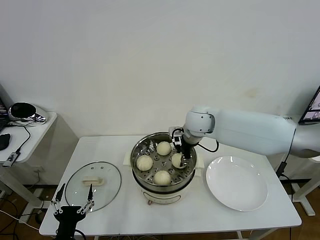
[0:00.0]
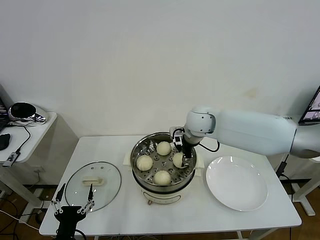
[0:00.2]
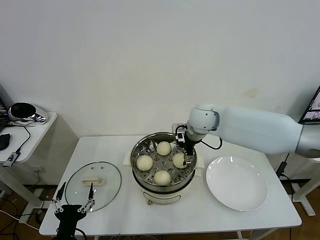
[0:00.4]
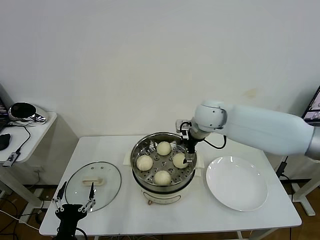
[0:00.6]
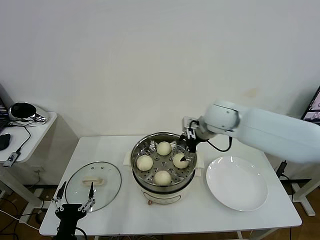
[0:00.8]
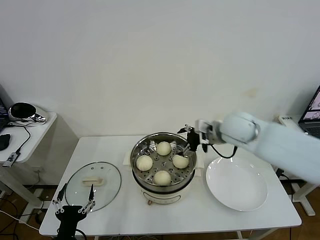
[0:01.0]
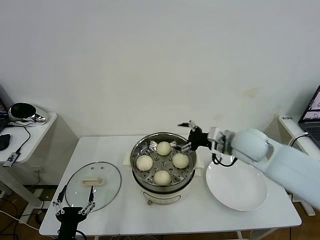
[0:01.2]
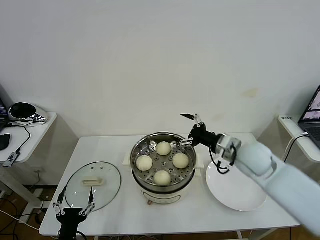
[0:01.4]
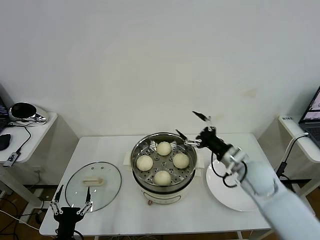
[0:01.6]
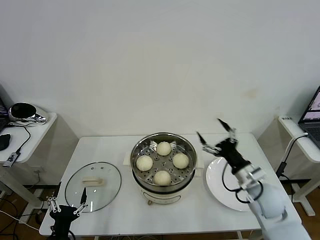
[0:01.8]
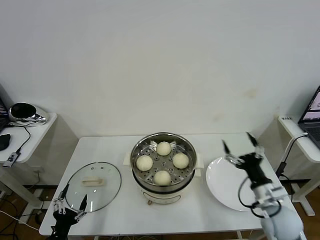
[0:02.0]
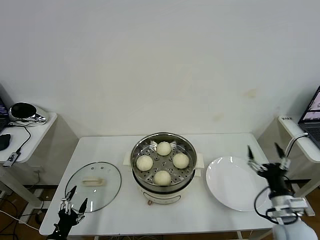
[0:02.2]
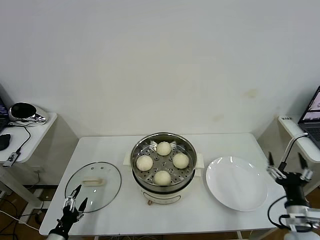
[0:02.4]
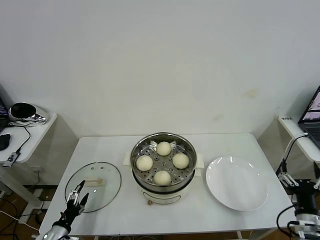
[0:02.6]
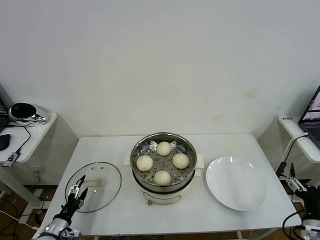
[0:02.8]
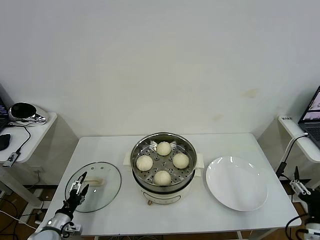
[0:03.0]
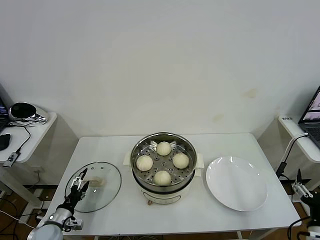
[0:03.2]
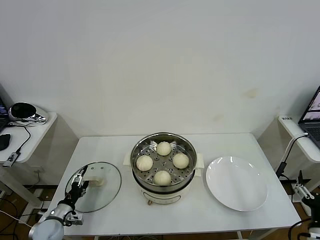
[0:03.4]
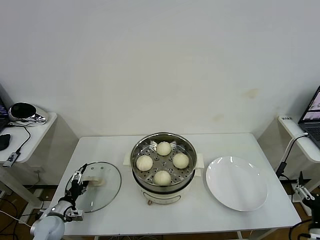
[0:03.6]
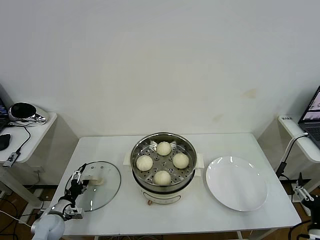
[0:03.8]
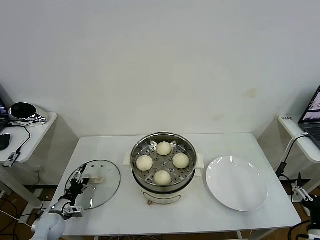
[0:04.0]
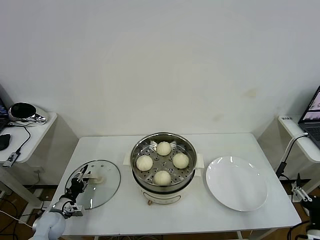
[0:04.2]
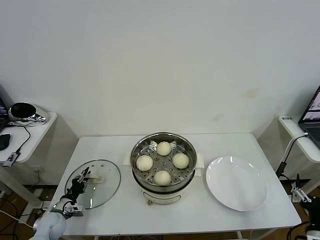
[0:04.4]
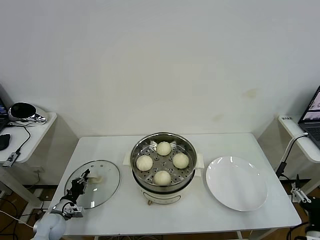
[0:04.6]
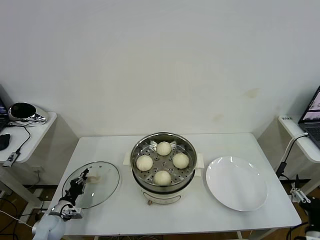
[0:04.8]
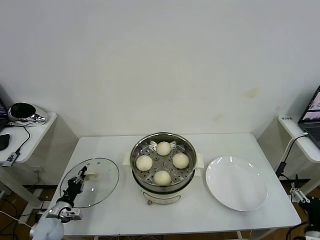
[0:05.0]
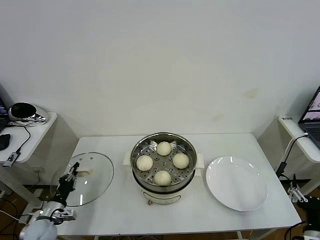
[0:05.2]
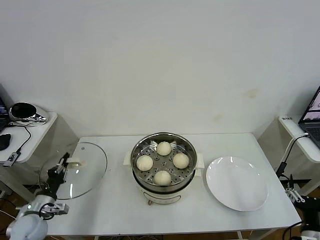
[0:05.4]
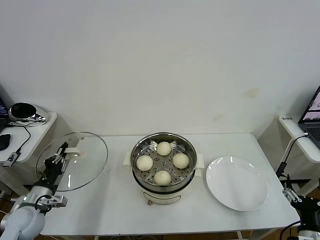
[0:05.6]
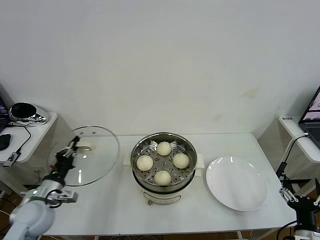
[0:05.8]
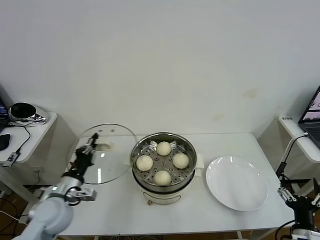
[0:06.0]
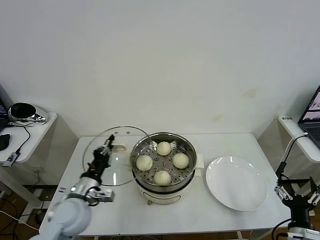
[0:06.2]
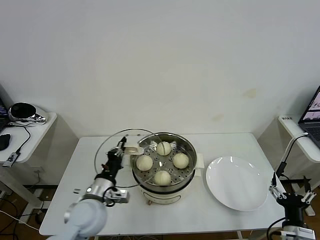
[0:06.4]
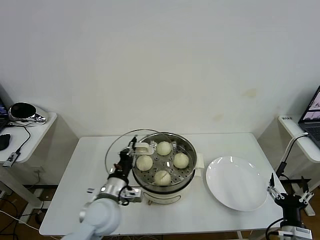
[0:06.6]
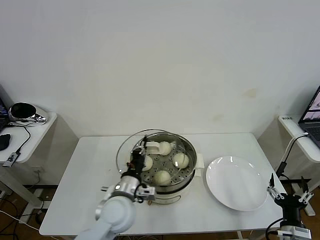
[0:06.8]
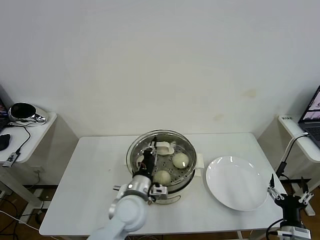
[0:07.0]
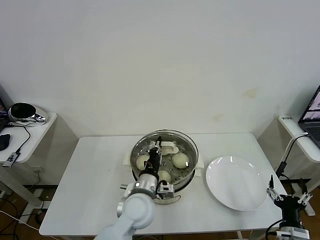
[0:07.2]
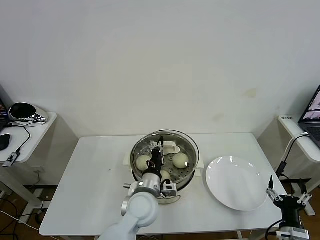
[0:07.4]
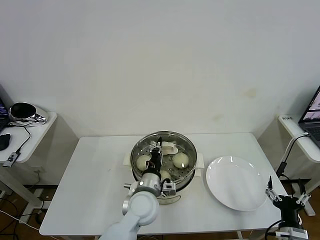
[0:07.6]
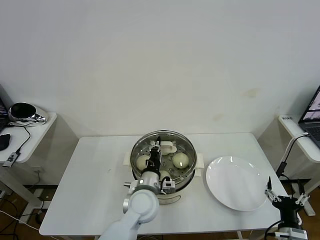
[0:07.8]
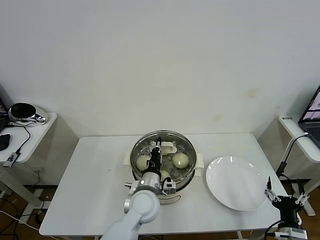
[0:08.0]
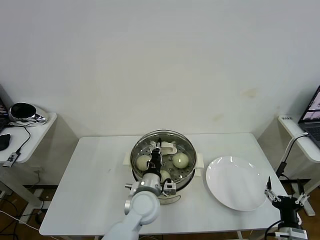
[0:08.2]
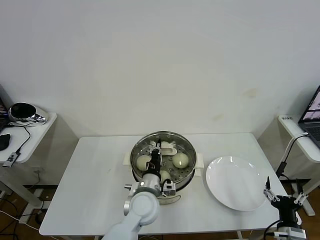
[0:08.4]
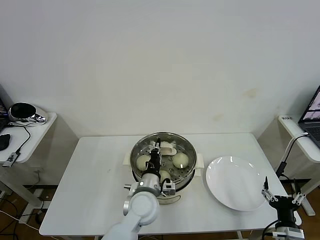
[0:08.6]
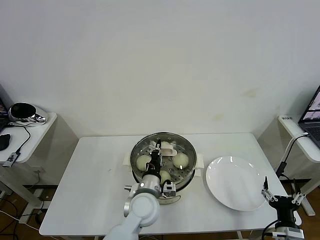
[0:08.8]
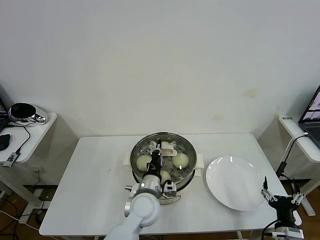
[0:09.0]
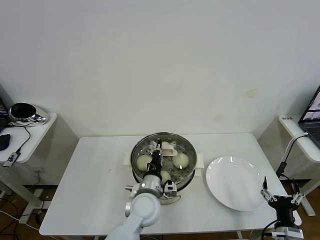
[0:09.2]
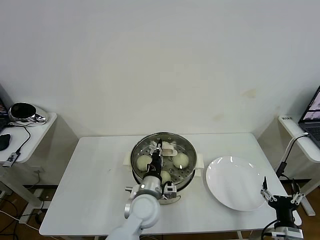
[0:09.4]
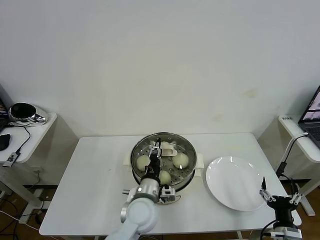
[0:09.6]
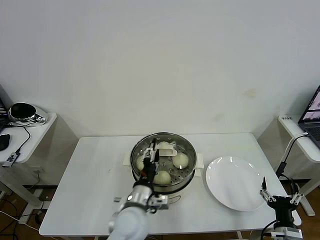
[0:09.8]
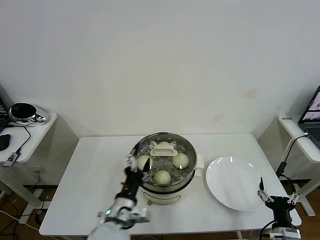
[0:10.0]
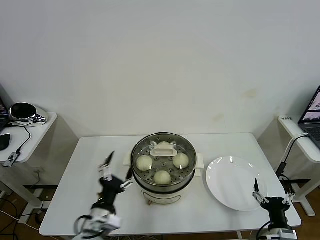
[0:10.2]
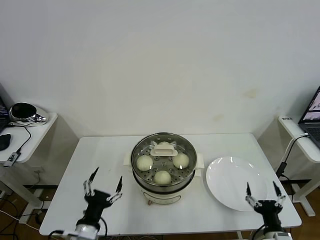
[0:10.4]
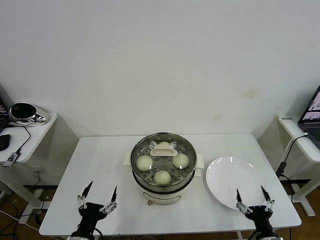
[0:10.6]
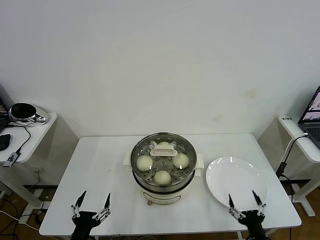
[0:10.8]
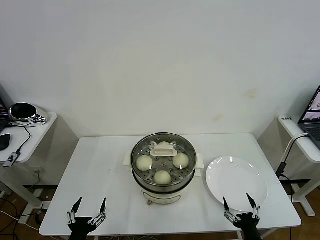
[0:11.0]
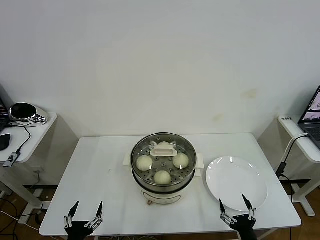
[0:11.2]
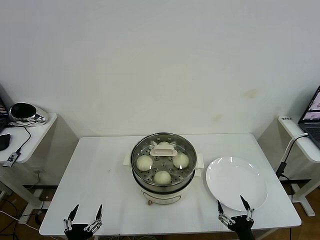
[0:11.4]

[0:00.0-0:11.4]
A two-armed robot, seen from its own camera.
Task of the whole recording: take steamed baozi put them in steamer then cover it.
Step, 0:00.6 to 0:04.6: Grasp the pot lid with left gripper.
Step, 0:04.8 to 0:09.8: Place the pot lid on the steamer with left gripper.
0:00.0 to 0:01.4: The right gripper goes about 20 cm to the right and backward, and opens up.
0:01.4 to 0:02.8: The left gripper travels to the left, forward and downward by about 15 cm. The right gripper heads backward, to the right and downward, covering about 30 cm.
0:02.8 to 0:04.2: The left gripper shifts about 10 cm forward, and closes up.
0:04.2 to 0:05.6: The left gripper is displaced upward by about 15 cm, and closes.
0:05.6 to 0:07.2: The left gripper goes some 35 cm to the right.
0:07.2 to 0:08.6: The grippers make only small movements.
0:08.6 to 0:10.0: The left gripper goes about 10 cm backward and to the left, and opens up.
0:10.0 to 0:11.4: The left gripper goes about 25 cm to the left, backward and downward. Meanwhile the right gripper goes roughly 5 cm to the left.

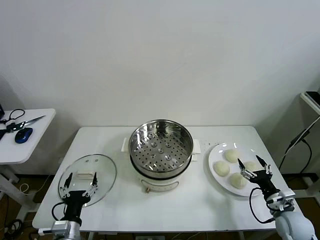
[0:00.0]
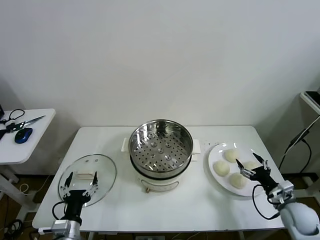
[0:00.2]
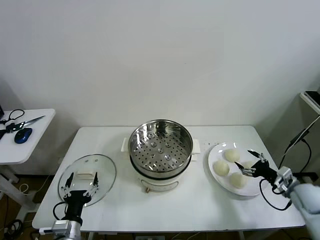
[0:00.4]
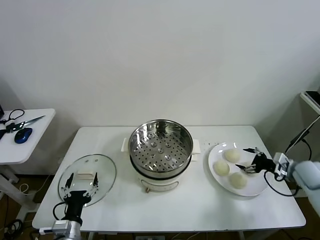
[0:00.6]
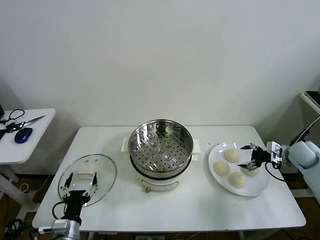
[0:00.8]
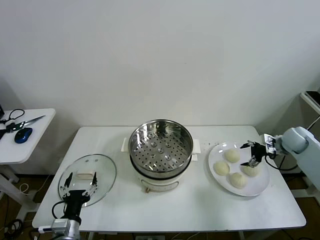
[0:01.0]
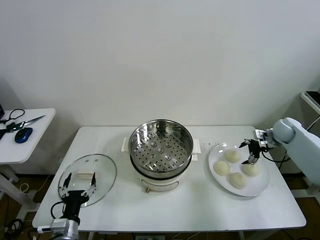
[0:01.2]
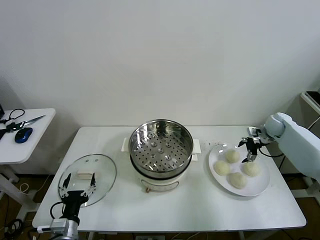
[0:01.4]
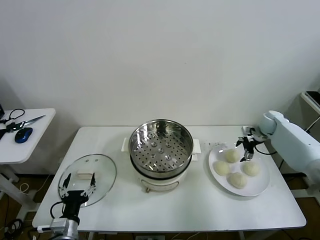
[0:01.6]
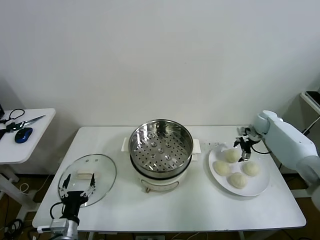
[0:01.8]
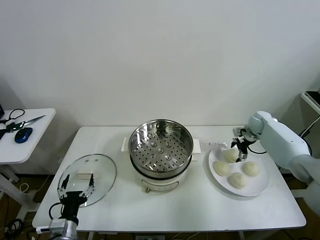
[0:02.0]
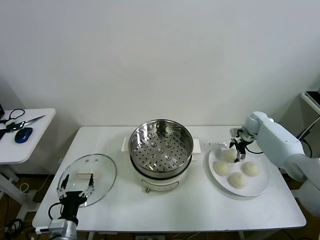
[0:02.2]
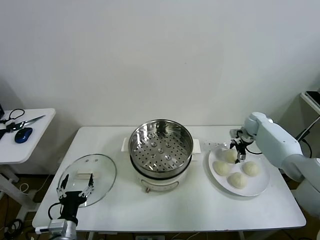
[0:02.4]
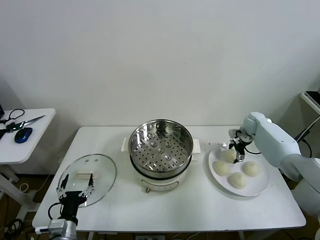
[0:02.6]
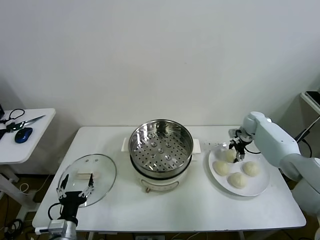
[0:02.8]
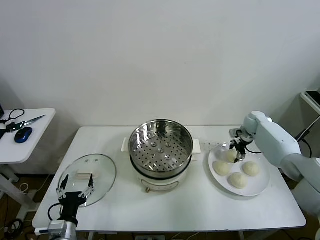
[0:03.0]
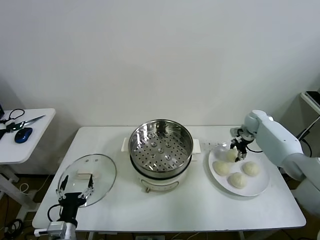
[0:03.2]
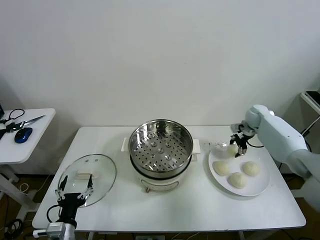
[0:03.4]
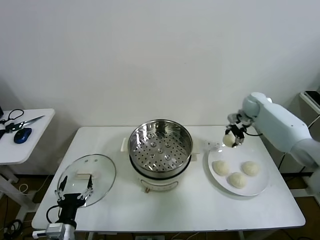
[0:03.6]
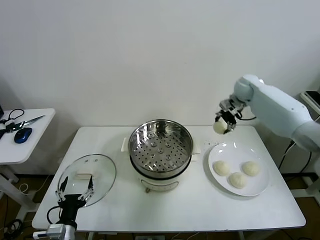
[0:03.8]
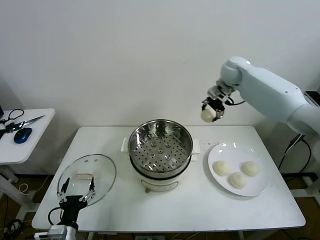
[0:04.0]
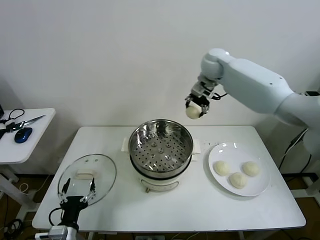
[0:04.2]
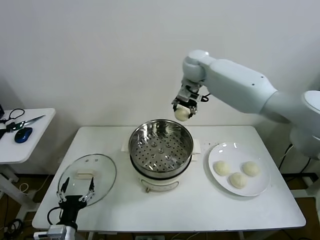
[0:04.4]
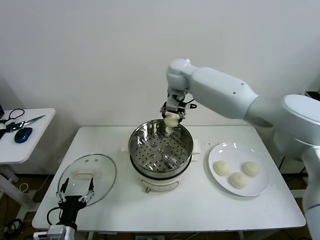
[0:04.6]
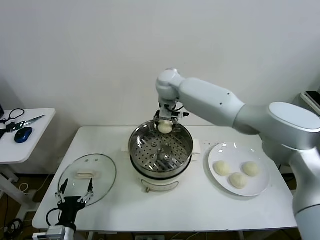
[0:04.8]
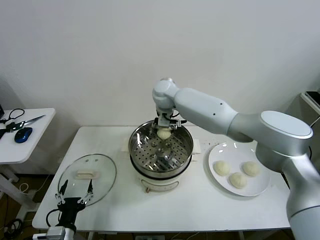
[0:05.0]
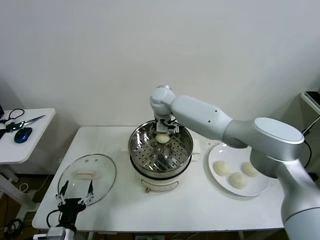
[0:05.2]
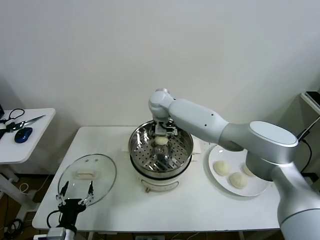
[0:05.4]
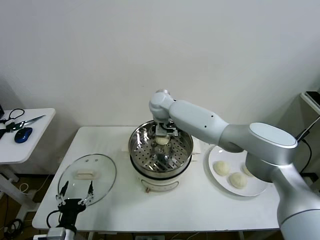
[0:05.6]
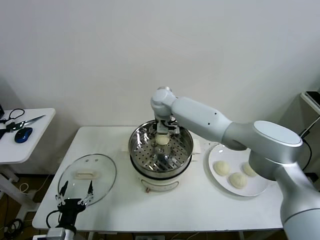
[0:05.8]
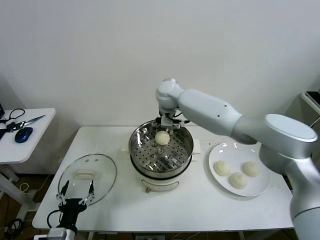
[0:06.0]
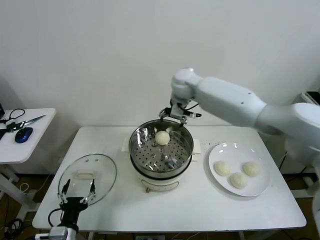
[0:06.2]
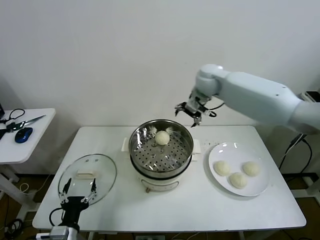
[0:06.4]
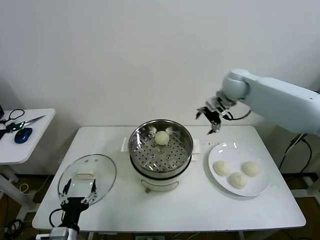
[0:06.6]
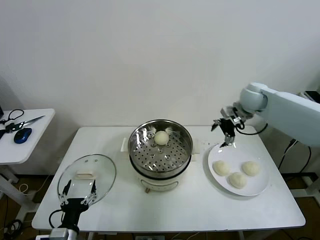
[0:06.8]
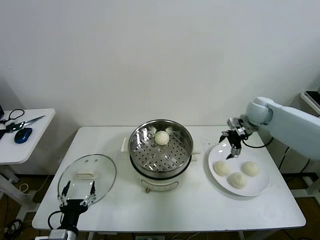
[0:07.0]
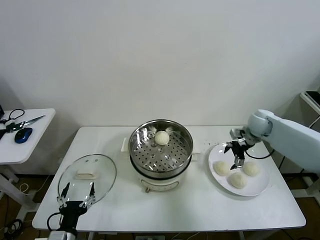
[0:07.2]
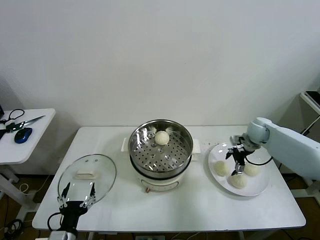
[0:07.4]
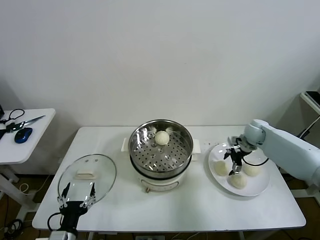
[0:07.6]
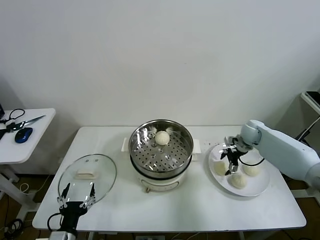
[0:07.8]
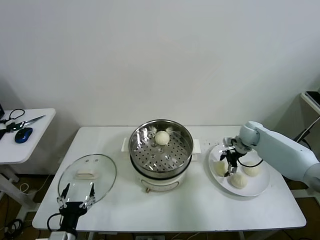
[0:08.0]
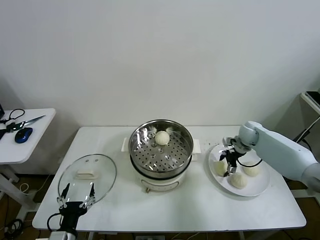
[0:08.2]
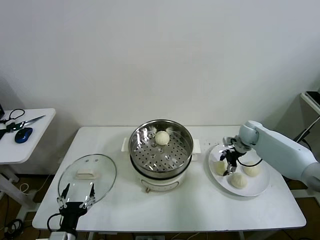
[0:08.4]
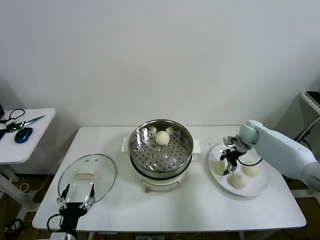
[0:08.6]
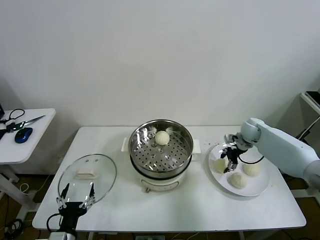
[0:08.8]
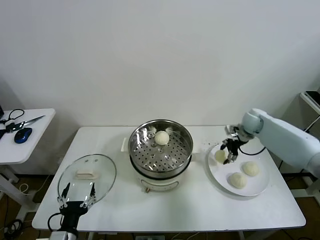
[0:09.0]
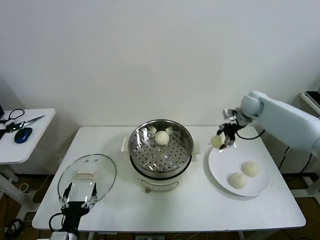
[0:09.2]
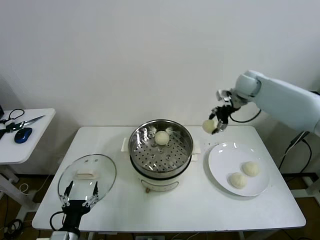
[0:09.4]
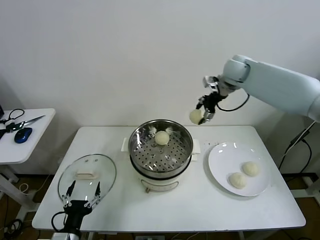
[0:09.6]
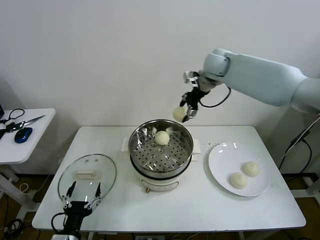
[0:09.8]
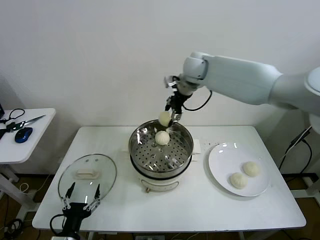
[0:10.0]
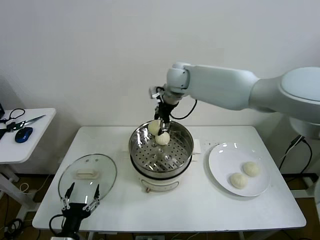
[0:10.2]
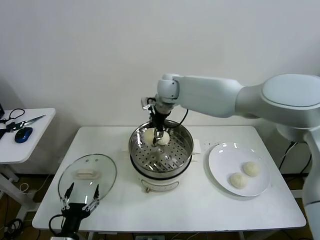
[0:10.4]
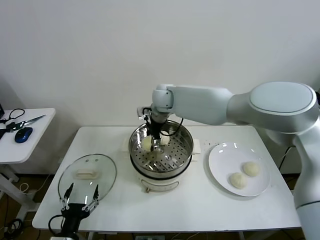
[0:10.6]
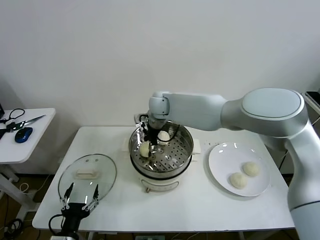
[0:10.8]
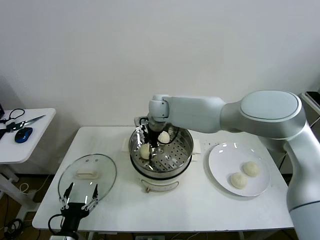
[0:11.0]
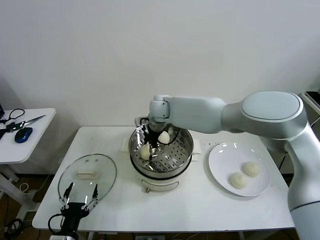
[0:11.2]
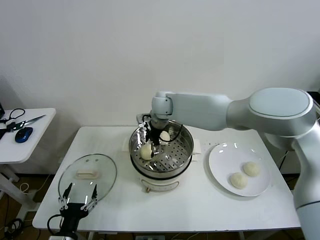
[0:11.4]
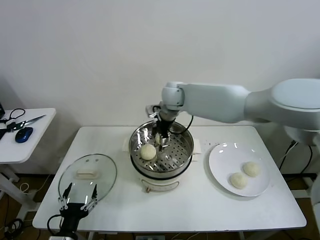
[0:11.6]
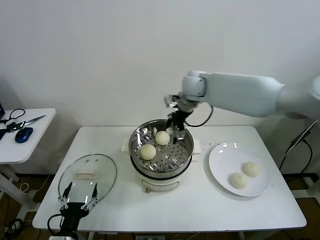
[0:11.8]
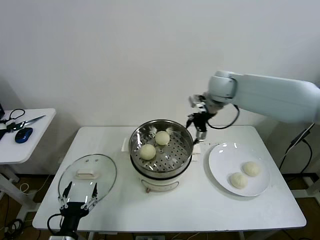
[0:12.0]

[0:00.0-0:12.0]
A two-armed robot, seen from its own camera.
Task of the whole recording: take steamed baozi put them in steamer then cover it.
Step, 0:00.0 to 0:02.8: Grasp the baozi in the plate with right gripper.
Step, 0:03.0 to 0:05.8: Place the baozi on the steamer with right gripper.
Step, 0:06.0 to 0:08.4: Grasp the baozi in the plate with right gripper.
Step, 0:08.6 to 0:11.4: Place the baozi on the steamer with right gripper.
0:01.6 to 0:03.0: The right gripper closes its fingers.
0:03.0 to 0:04.4: The right gripper heads to the left and upward, covering some 40 cm.
0:04.4 to 0:06.0: The right gripper moves downward, some 5 cm, and opens its fingers.
0:06.0 to 0:07.6: The right gripper moves to the right and downward, some 40 cm.
0:07.6 to 0:09.0: The right gripper moves upward, roughly 5 cm, and closes its fingers.
0:09.0 to 0:10.4: The right gripper is displaced to the left by about 35 cm.
0:10.4 to 0:12.0: The right gripper travels to the right by approximately 20 cm, and opens its fingers.
